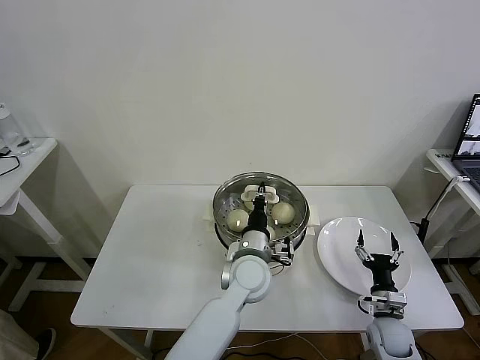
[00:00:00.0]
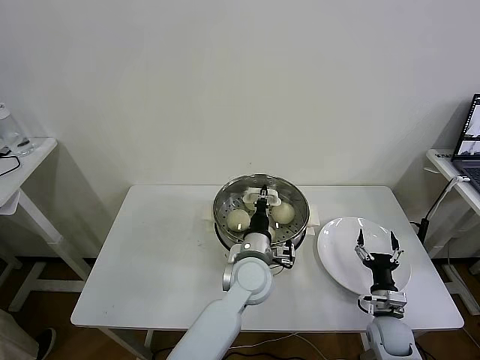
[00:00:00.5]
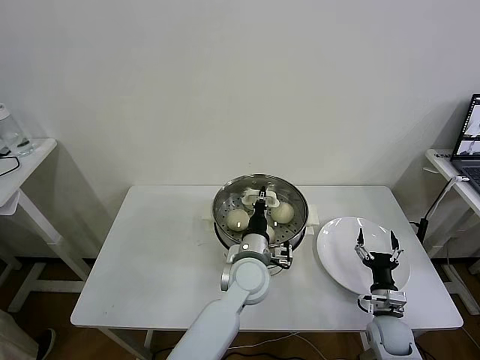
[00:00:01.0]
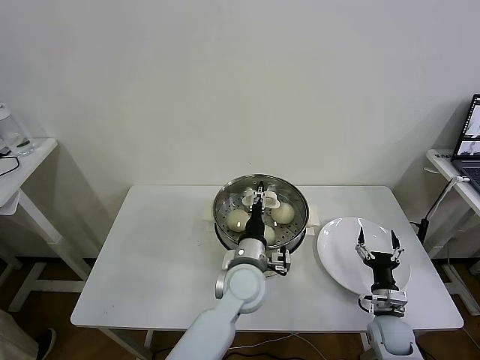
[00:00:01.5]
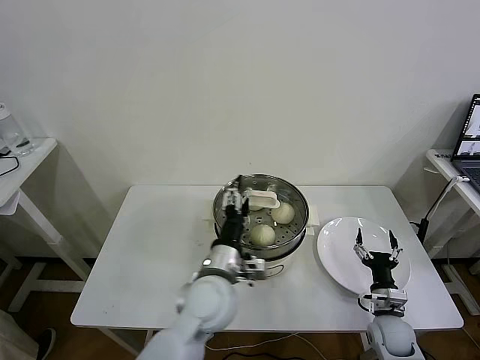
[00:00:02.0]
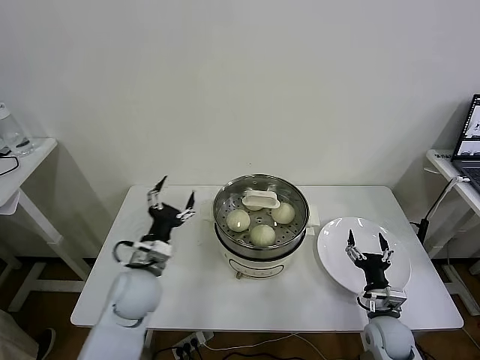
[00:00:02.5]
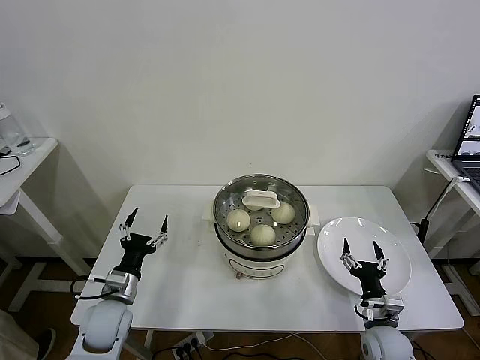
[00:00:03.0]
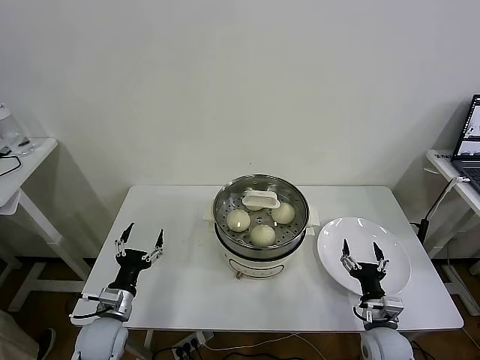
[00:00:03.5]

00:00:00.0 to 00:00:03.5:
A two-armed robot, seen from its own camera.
Task of the whole recording: take steamed baozi put them in steamer then cover it.
00:00:00.0 to 00:00:02.0: The left gripper travels backward and to the left by some 10 cm, and opens.
00:00:02.0 to 00:00:03.5: The left gripper heads to the left and downward, covering approximately 30 cm, while the right gripper changes place by about 5 cm.
